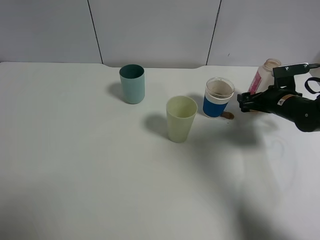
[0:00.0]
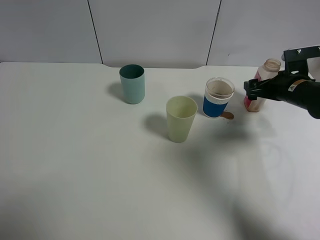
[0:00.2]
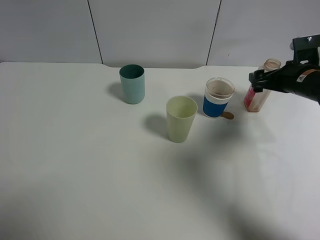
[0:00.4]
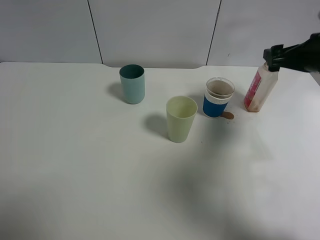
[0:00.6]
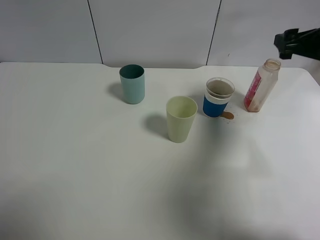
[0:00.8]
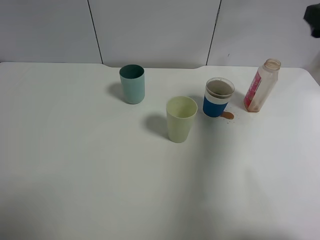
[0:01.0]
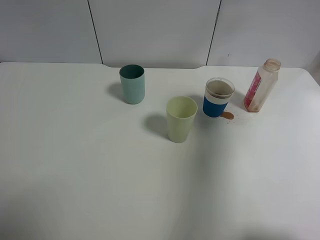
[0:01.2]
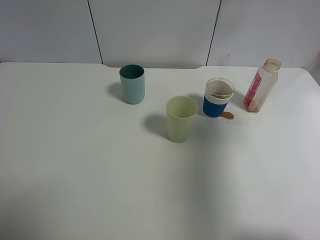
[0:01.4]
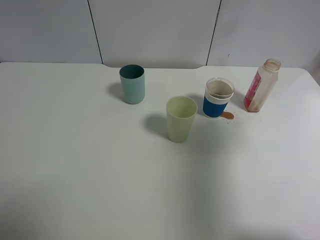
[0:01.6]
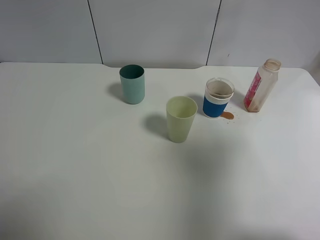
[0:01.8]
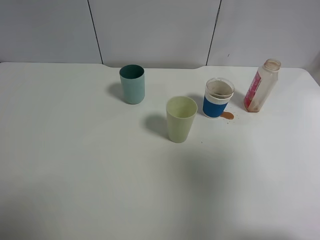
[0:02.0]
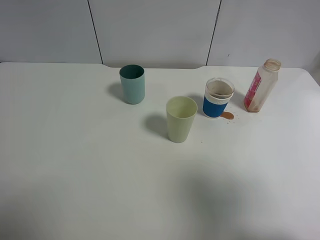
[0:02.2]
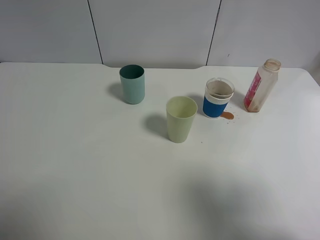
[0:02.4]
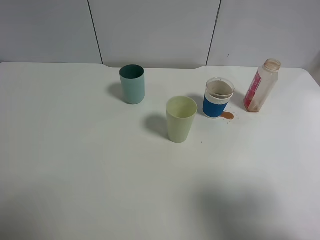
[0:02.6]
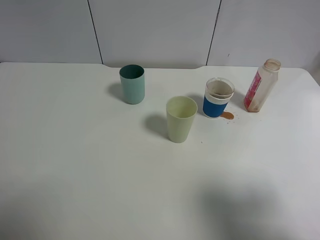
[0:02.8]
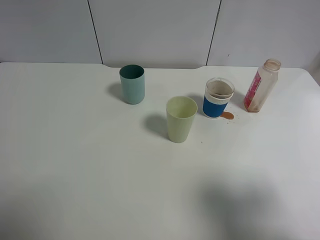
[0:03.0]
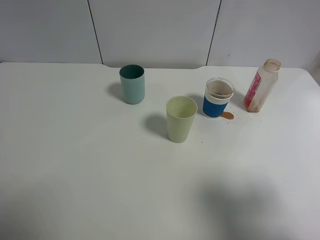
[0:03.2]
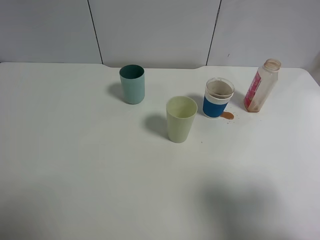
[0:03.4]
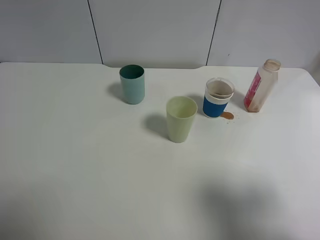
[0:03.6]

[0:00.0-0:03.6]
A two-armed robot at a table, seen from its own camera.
Task of the whole recording: use a gripper to hold the bottle of the drink and pour it into a random cup.
0.0 to 1.8 s: The right gripper moves upward and backward, about 40 cm.
1.8 to 3.6 s: The right gripper travels downward and backward by approximately 10 cm.

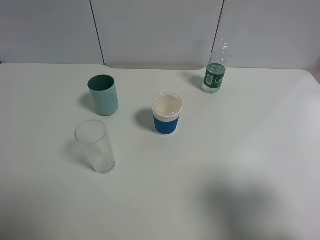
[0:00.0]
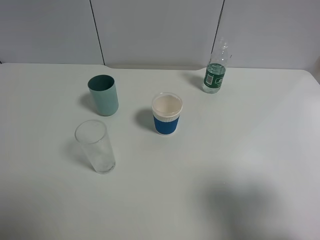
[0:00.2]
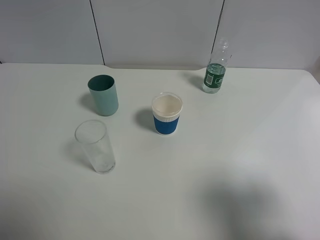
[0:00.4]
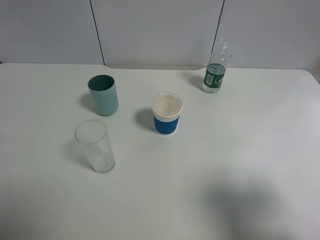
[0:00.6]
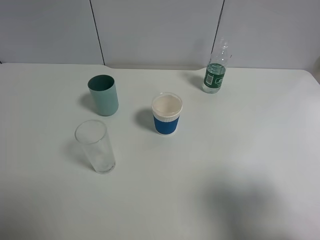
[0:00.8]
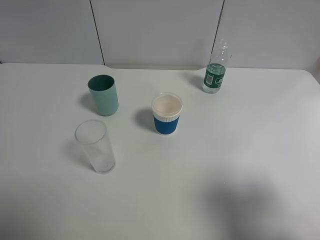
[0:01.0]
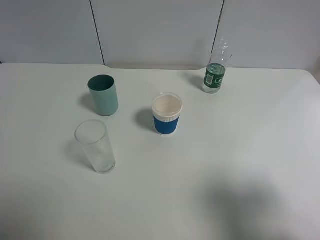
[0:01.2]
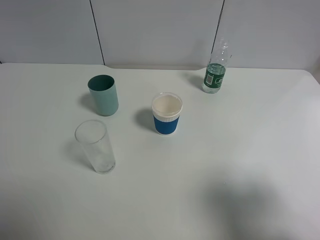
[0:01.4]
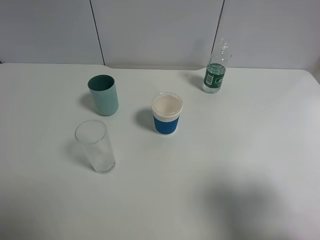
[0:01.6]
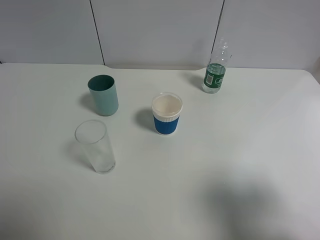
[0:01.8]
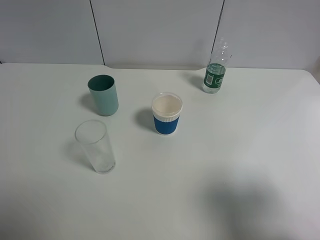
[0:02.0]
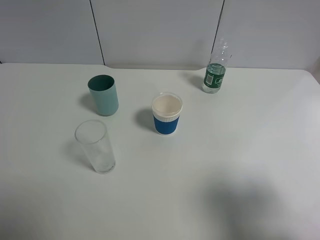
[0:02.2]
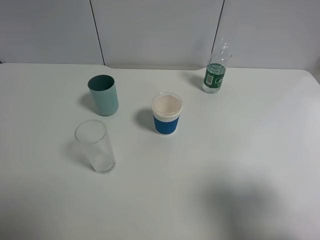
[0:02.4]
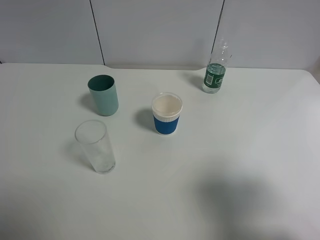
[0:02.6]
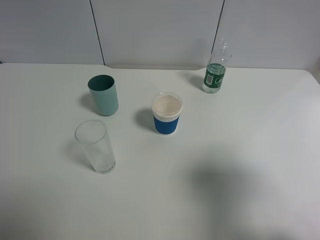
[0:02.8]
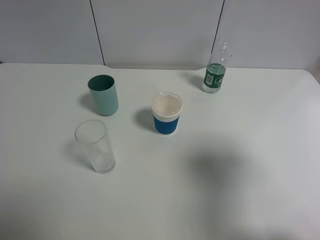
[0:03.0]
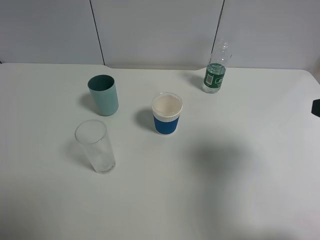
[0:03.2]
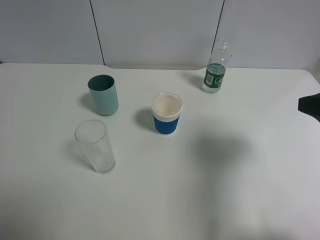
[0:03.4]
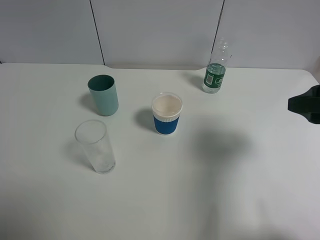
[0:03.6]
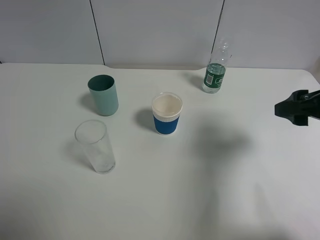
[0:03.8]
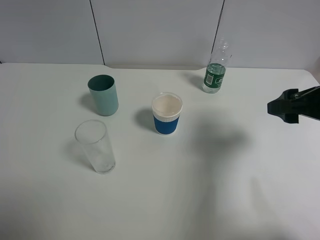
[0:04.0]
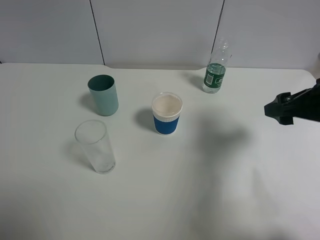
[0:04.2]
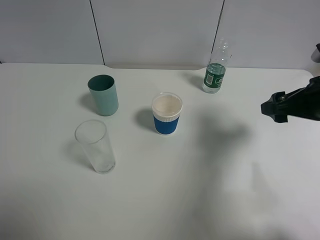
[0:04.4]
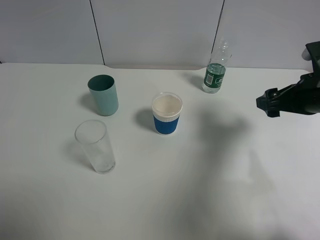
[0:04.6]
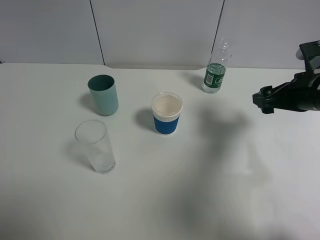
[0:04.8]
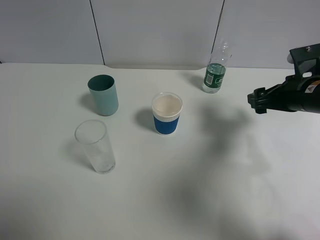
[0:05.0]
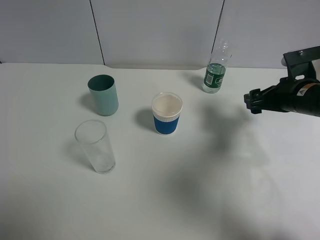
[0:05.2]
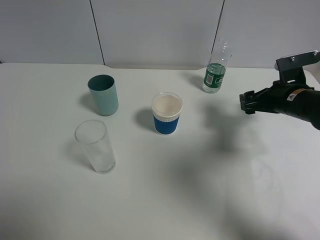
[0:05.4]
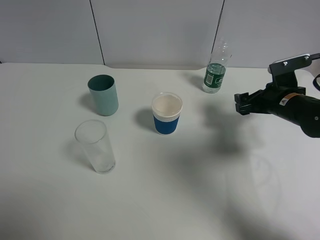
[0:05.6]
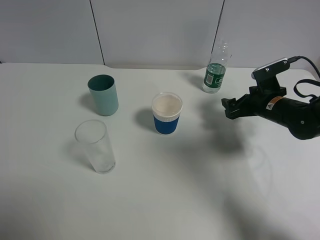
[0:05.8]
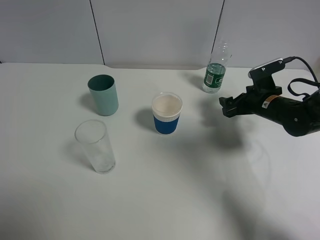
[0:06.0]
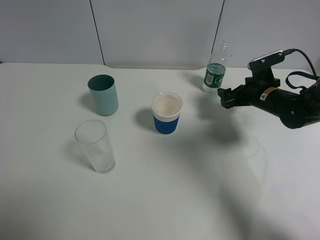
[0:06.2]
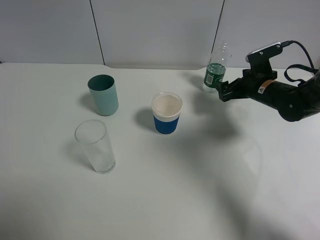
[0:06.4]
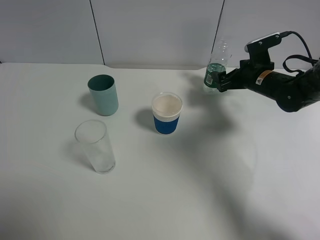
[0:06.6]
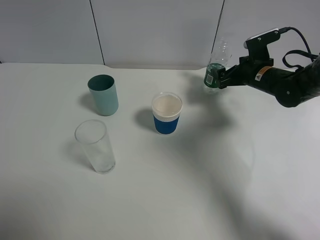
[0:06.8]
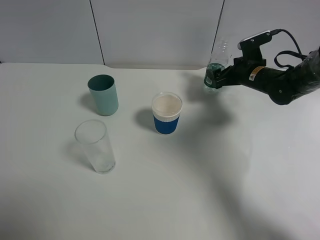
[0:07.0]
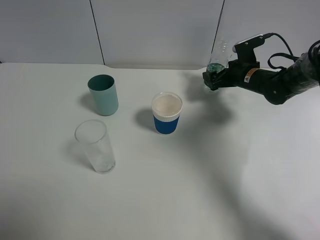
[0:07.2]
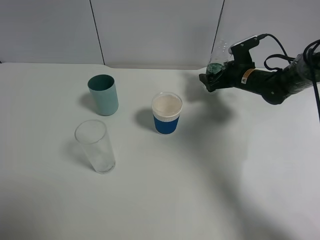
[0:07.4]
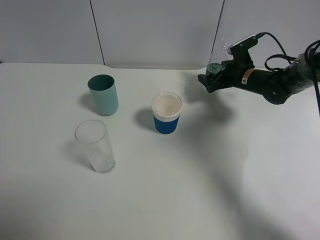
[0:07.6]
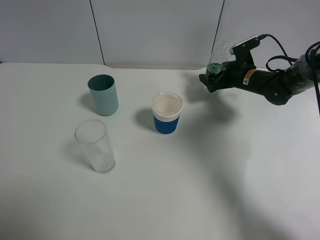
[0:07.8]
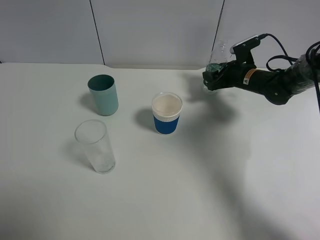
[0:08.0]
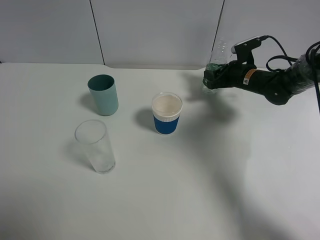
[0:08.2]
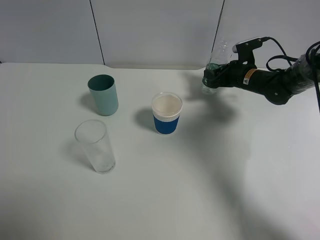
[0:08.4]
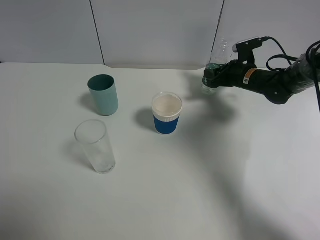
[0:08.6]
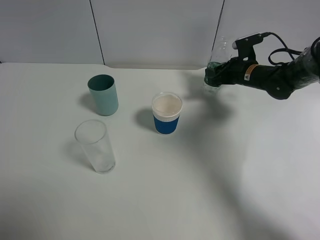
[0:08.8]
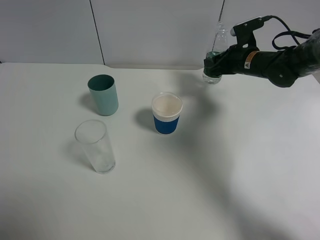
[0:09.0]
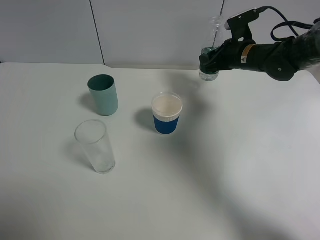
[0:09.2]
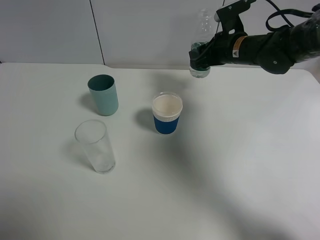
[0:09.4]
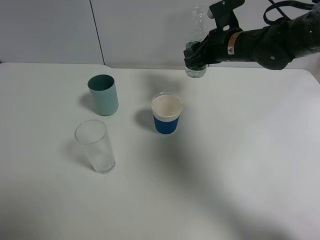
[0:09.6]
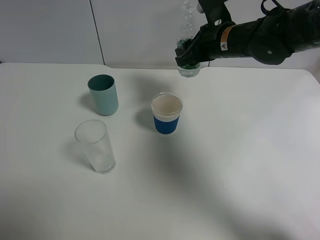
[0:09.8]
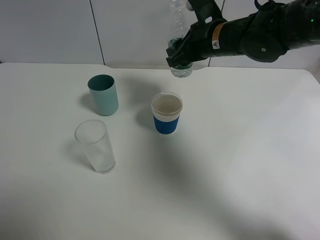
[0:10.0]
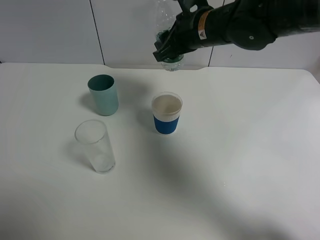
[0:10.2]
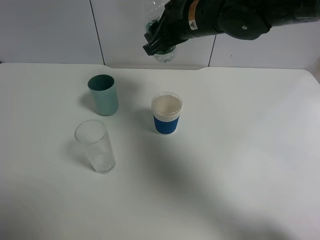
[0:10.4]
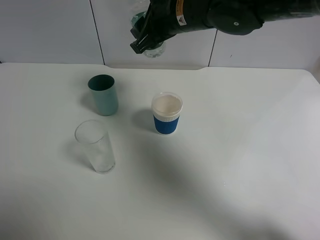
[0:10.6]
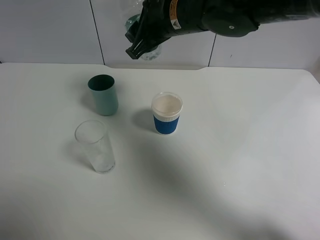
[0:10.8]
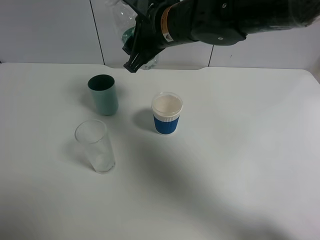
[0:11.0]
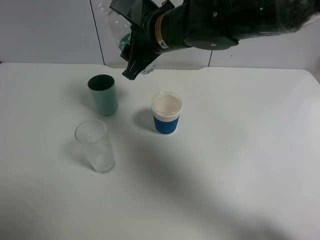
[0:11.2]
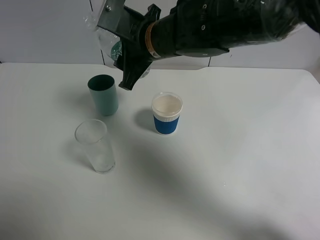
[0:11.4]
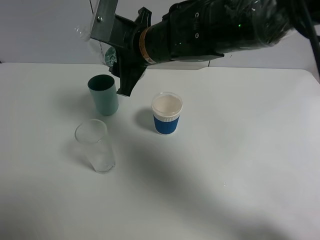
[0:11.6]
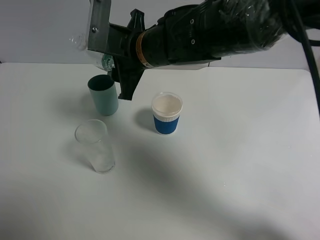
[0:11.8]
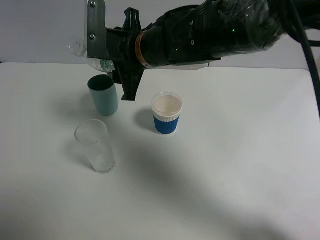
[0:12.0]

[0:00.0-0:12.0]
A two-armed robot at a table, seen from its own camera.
Task of the whole recording: use a gripper to hold the bottle of the drink and pour it into a random cup.
Step, 0.0 to 8.4 s: Grasp the mineral water bottle with the right gripper.
0.0 to 1.6 s: Both grippers stay put.
1.6 to 3.0 s: The right gripper moves forward, approximately 10 cm.
3.0 to 4.4 s: The right gripper goes roughly 15 cm forward and downward.
4.4 to 6.0 s: The right gripper moves downward and forward, about 20 cm.
6.0 to 7.6 s: The right gripper shifts some 10 cm forward.
7.6 to 9.0 s: The right gripper heads upward, covering approximately 5 cm, and closes its fingers.
9.0 to 10.4 s: The right gripper goes roughly 20 cm to the left, upward and backward.
10.4 to 12.0 s: The right gripper heads to the left, covering about 10 cm.

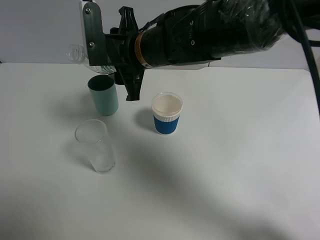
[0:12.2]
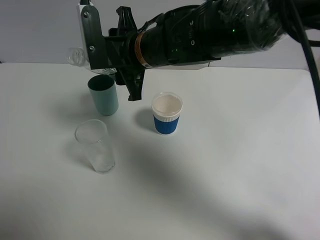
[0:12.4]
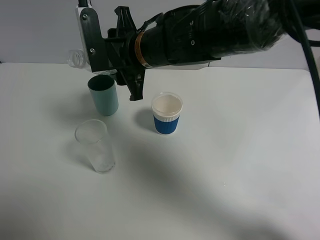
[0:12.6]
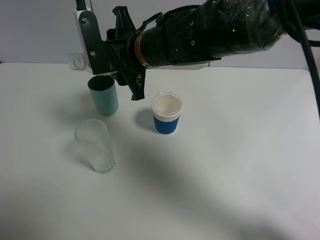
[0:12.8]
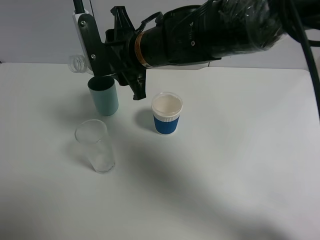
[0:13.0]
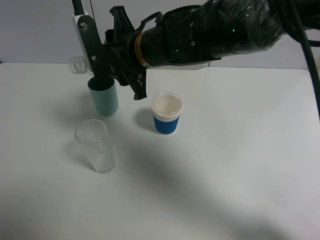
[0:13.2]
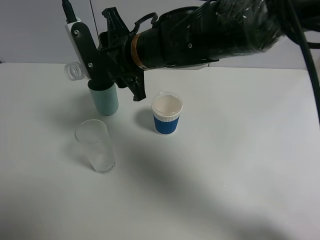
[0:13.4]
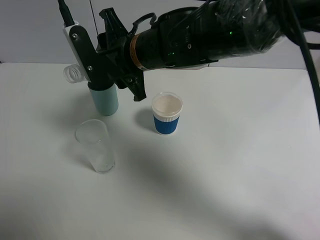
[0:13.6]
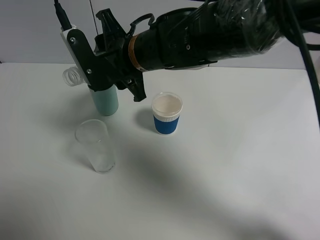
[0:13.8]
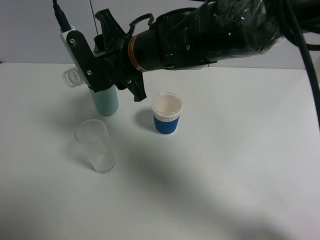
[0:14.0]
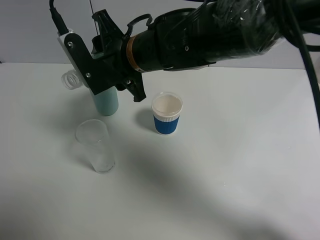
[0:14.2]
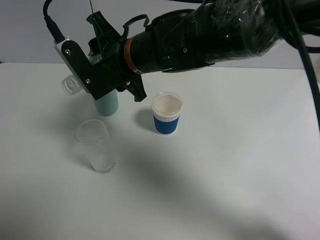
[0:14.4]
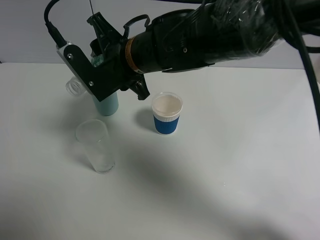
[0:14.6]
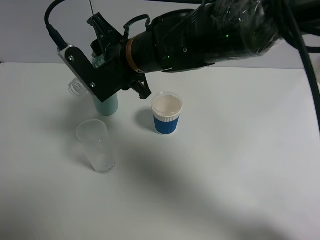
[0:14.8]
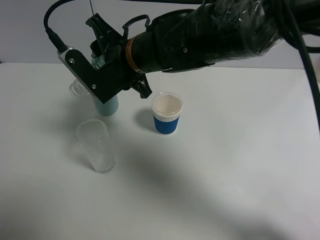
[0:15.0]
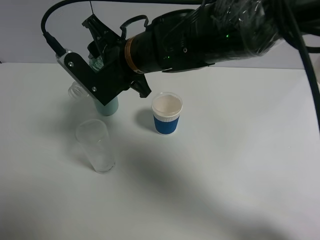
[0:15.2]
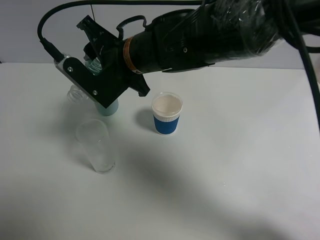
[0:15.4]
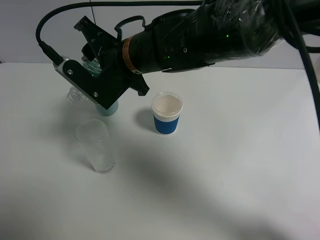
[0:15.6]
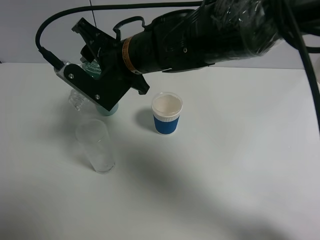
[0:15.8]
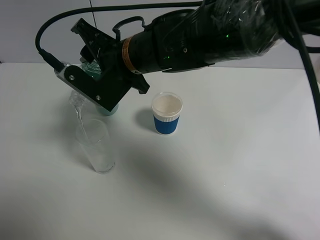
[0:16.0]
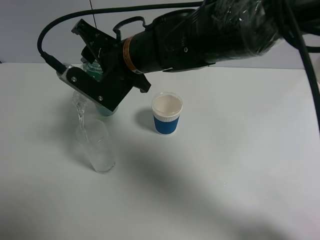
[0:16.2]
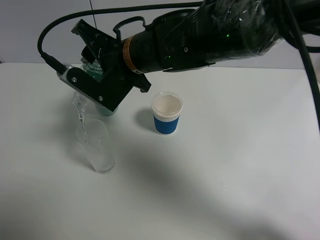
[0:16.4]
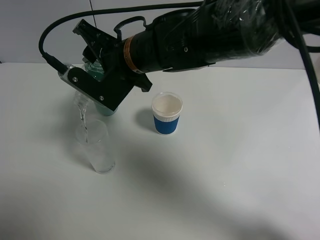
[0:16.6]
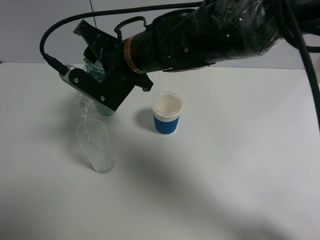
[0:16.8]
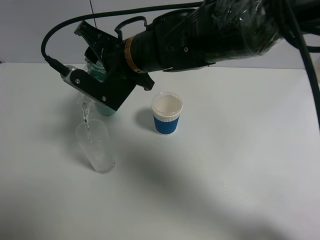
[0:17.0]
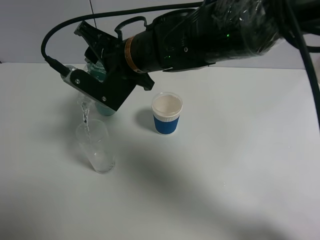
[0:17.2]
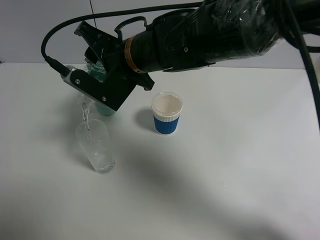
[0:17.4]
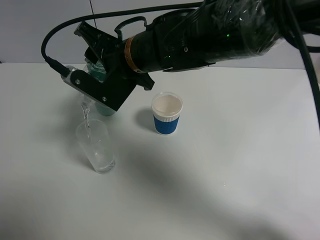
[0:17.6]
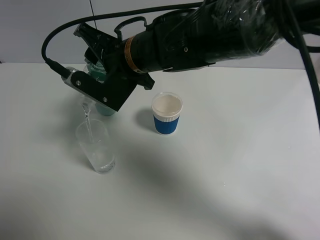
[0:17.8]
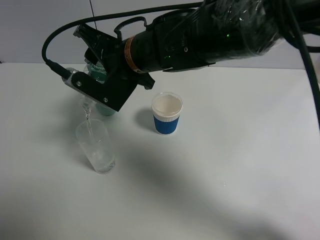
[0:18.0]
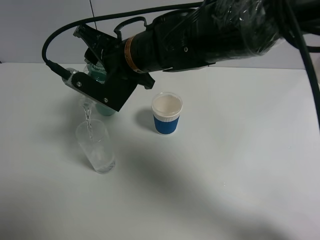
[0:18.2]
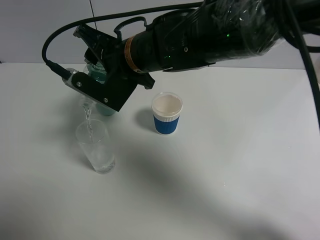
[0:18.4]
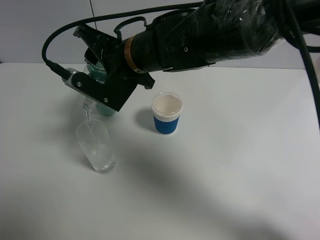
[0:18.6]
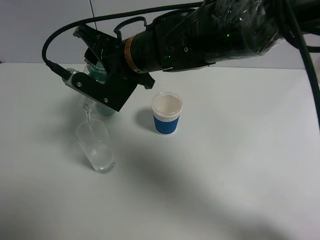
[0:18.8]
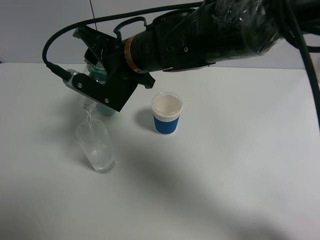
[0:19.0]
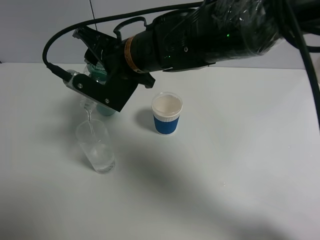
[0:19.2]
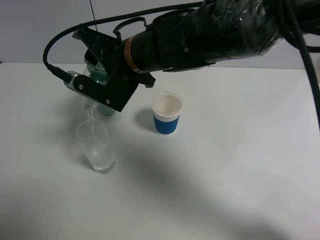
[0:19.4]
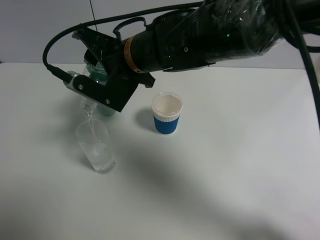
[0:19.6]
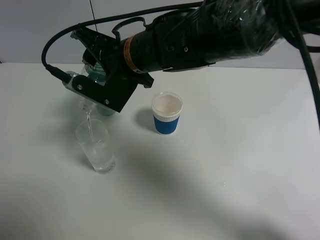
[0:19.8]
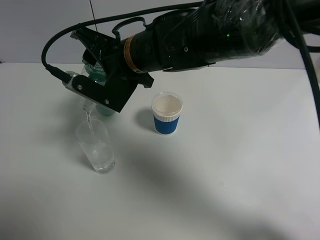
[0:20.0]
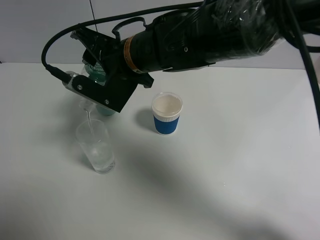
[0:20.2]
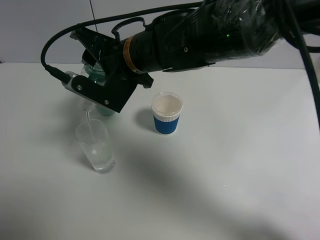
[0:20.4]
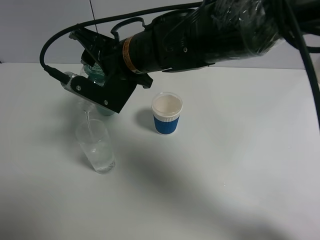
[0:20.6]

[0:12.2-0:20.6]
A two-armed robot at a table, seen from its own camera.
Task of the whole recording: use a gripper to hold the bottle of the drink and pour it into a random cup.
12.2 to 13.6 s: There are only small adjustments of the grippers.
13.6 to 15.0 s: There are only small adjustments of the grippers.
15.0 to 16.4 s: The grippers make only small movements.
16.4 to 17.8 s: Both grippers stay about where they are.
17.8 to 20.6 s: Neither gripper changes place.
